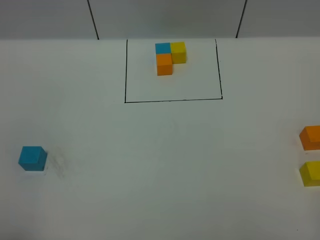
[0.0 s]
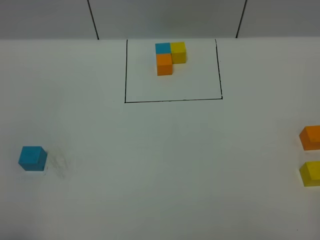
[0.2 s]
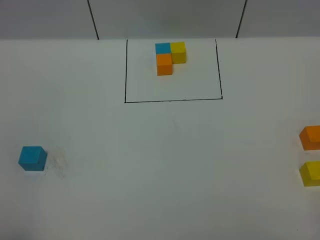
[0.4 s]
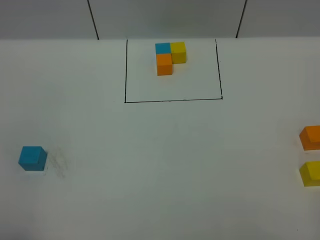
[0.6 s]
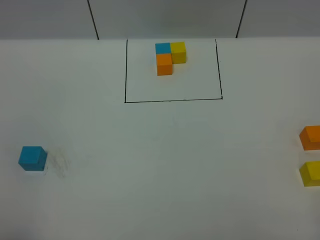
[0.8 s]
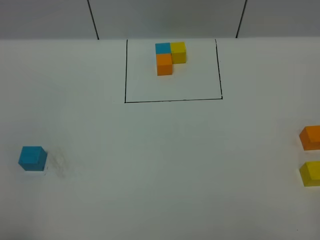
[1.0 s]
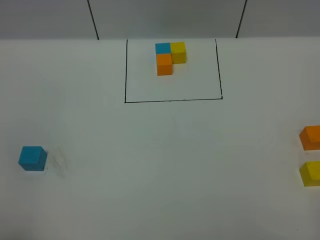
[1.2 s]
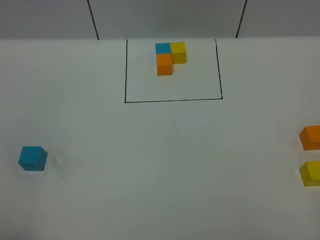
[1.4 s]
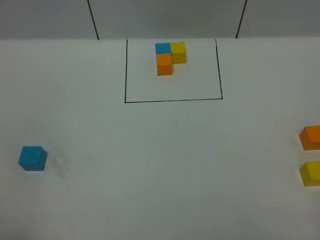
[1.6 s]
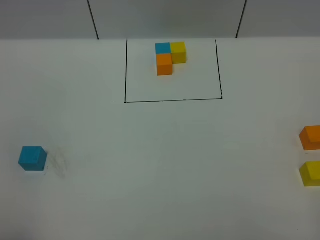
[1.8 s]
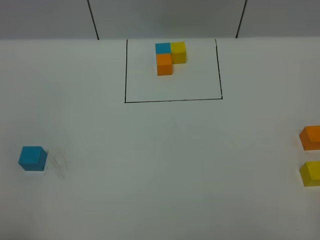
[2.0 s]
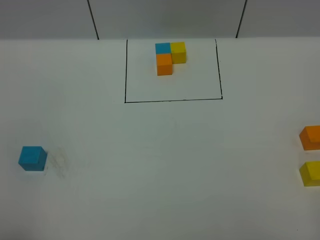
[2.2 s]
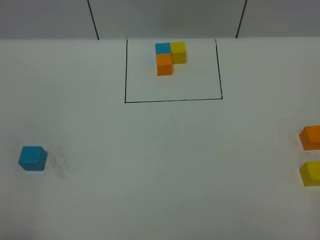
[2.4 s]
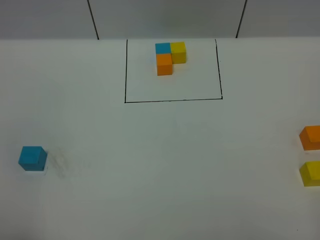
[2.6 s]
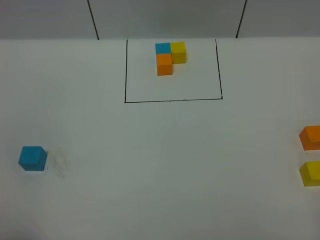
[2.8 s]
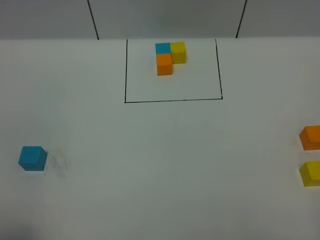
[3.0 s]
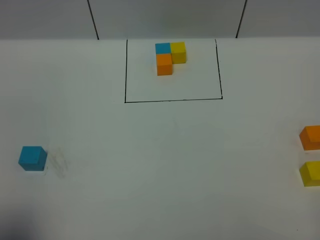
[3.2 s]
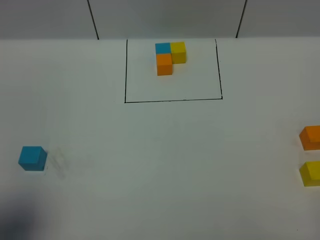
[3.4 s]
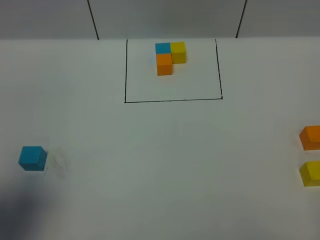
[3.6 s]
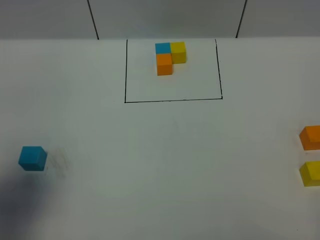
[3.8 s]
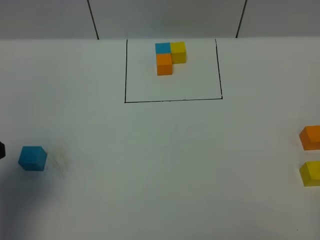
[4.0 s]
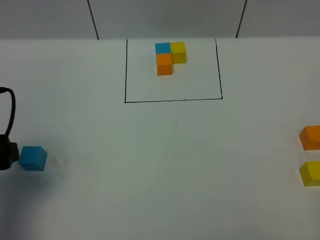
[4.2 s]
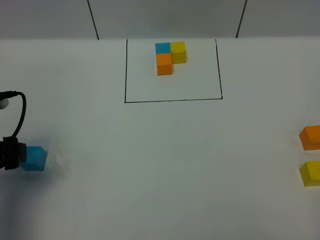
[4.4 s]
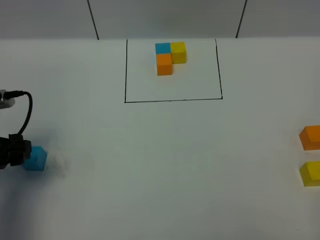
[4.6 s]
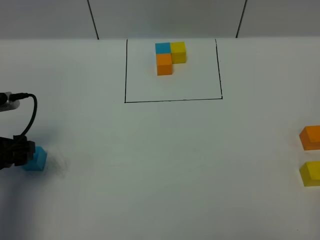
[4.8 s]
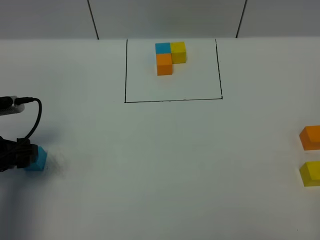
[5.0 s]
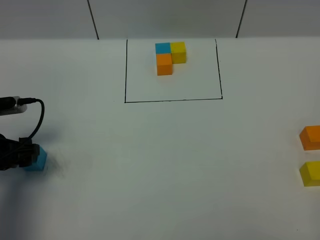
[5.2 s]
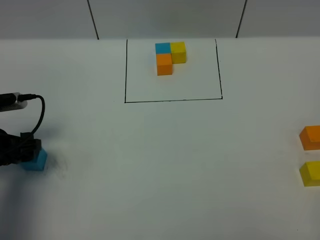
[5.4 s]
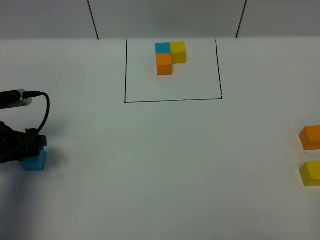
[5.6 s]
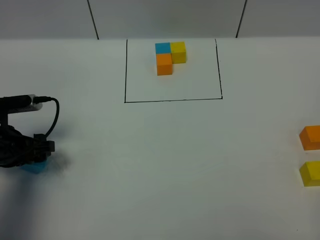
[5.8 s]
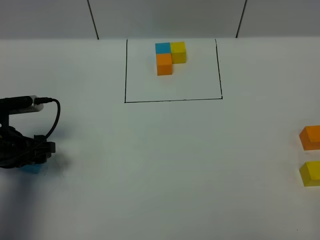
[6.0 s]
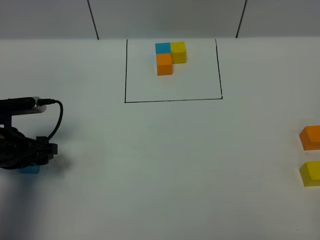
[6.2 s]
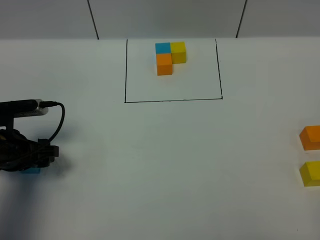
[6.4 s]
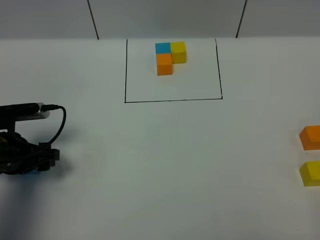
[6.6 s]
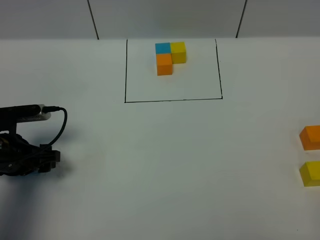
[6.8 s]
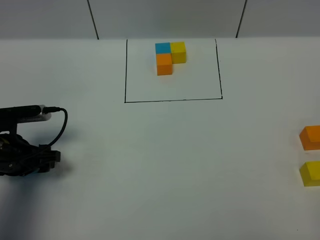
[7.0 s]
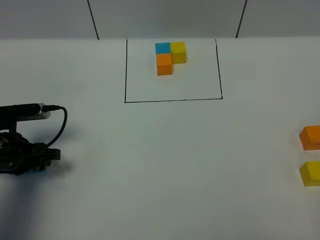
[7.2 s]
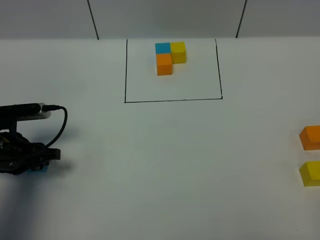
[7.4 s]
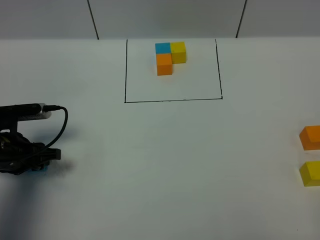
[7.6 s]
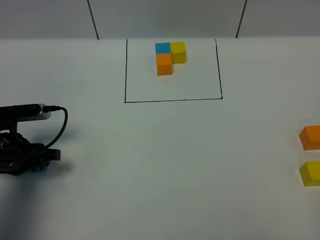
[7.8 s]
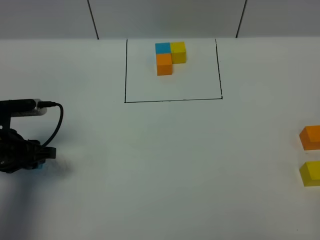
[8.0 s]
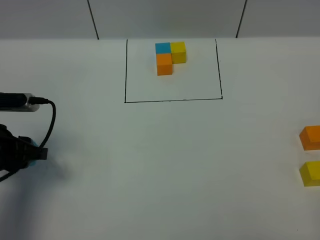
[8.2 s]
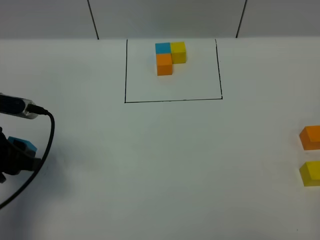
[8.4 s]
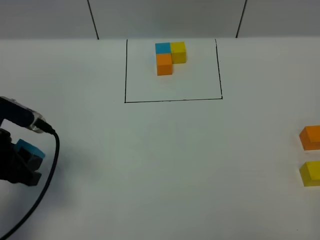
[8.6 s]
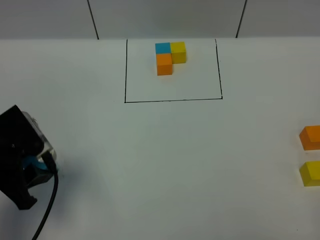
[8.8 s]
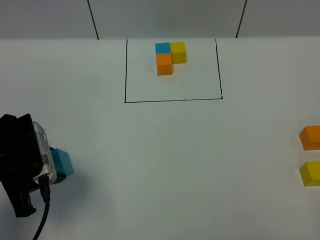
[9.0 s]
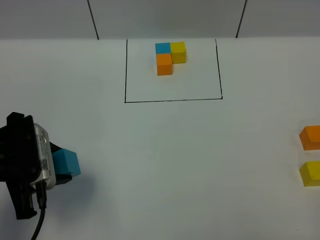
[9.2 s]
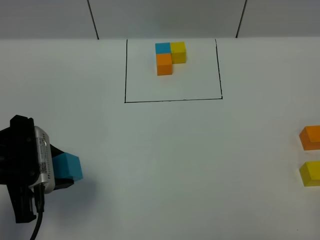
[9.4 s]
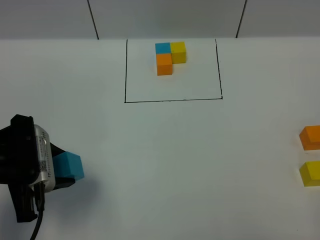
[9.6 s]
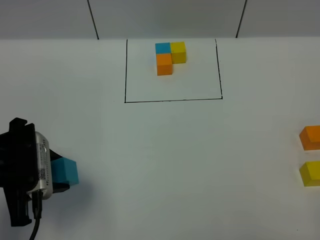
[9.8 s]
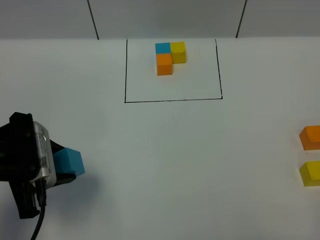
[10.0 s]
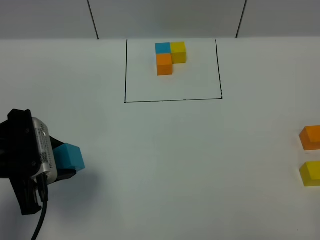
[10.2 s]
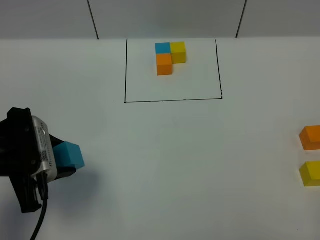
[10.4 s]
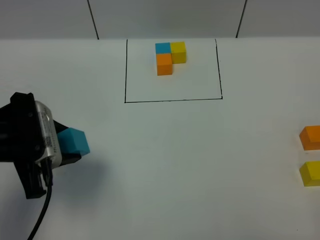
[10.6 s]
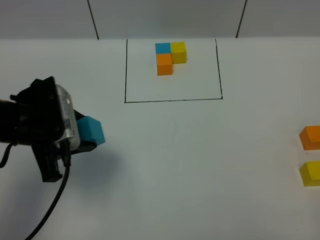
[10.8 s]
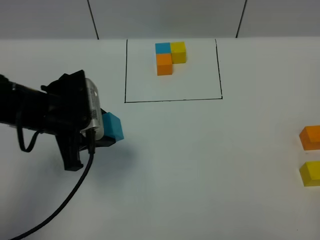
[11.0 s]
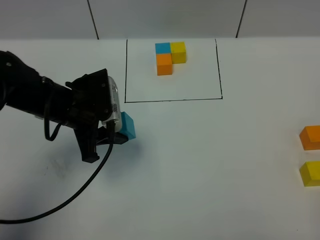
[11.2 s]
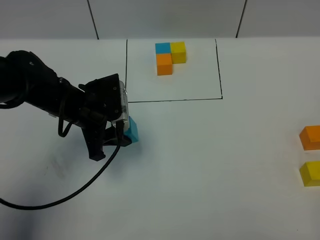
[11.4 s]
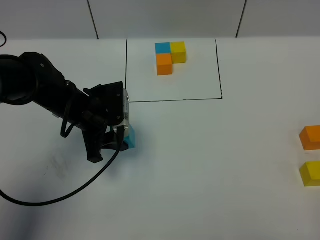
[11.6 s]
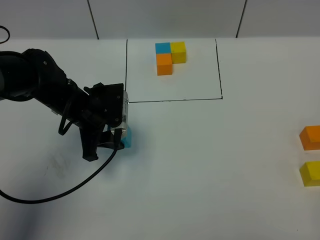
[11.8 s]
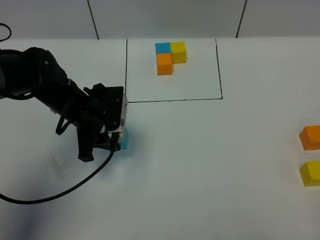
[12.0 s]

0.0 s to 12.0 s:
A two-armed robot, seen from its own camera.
Task of the whole recording: According to the building block template in front, assemble the scattered blocks together.
0.0 to 1.6 s: Both grippers stay put.
3.0 to 4.4 s: The left gripper travels forward and downward by approximately 25 cm.
4.4 to 6.0 s: The left gripper is displaced downward by roughly 5 cm.
6.0 to 7.6 s: The grippers make only small movements.
7.6 to 9.0 s: The left gripper shifts roughly 10 cm upward and backward.
9.0 to 10.4 s: There are only small adjustments of the grippers.
10.4 to 12.0 s: The left gripper is displaced forward, to the right and downward by approximately 15 cm.

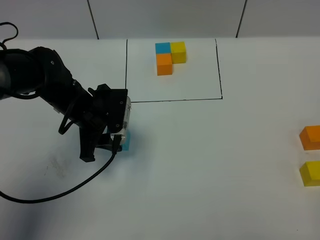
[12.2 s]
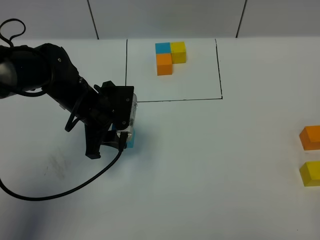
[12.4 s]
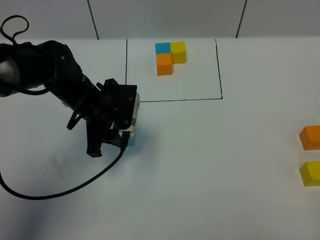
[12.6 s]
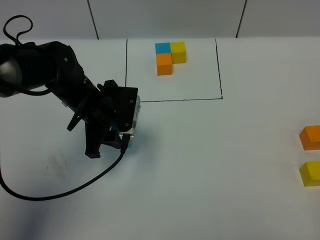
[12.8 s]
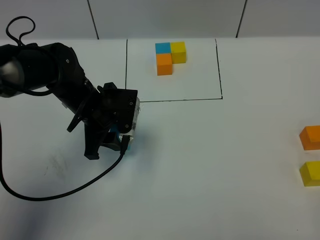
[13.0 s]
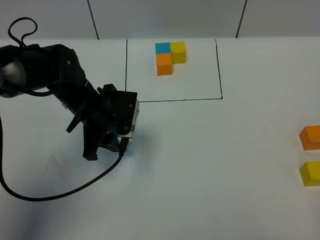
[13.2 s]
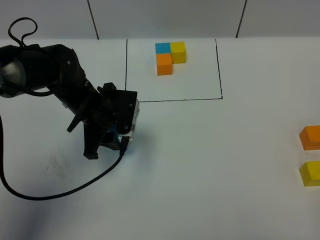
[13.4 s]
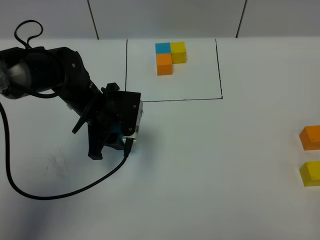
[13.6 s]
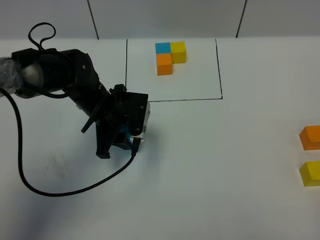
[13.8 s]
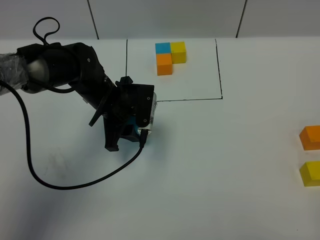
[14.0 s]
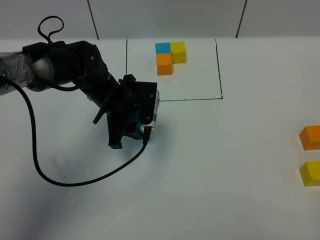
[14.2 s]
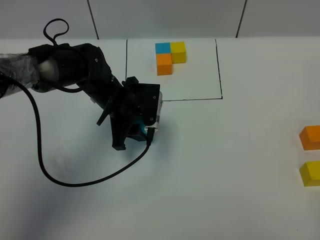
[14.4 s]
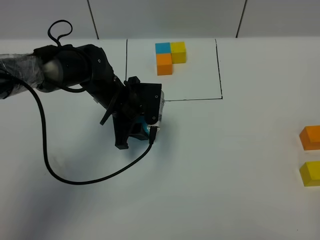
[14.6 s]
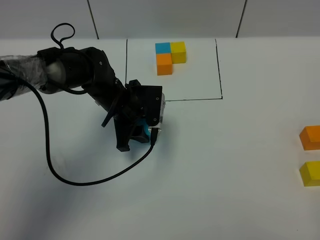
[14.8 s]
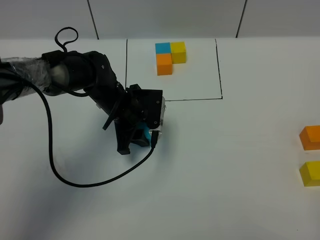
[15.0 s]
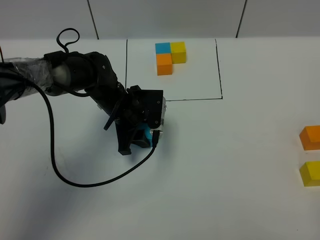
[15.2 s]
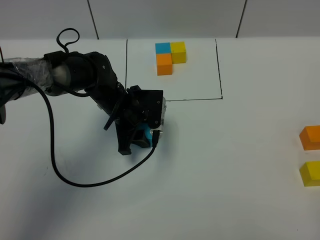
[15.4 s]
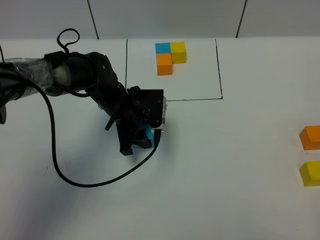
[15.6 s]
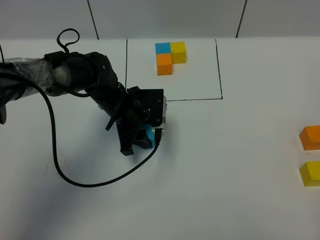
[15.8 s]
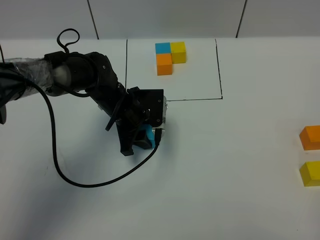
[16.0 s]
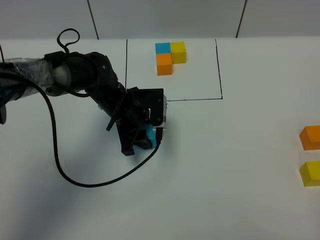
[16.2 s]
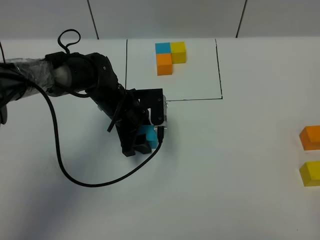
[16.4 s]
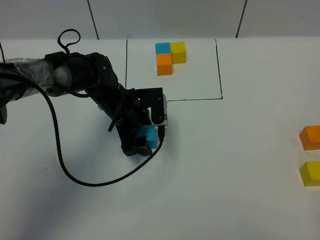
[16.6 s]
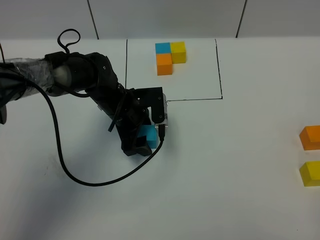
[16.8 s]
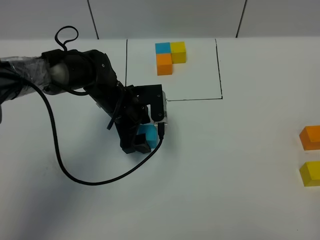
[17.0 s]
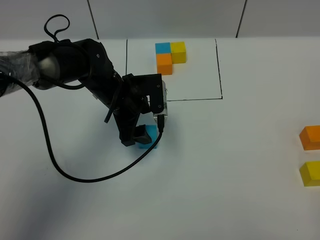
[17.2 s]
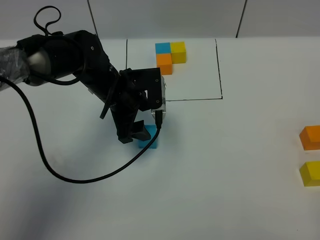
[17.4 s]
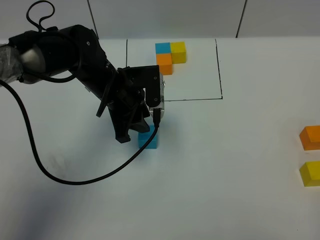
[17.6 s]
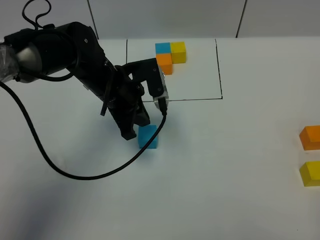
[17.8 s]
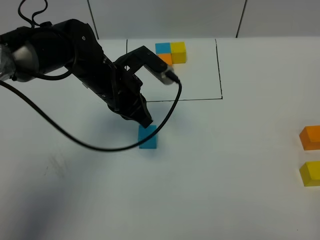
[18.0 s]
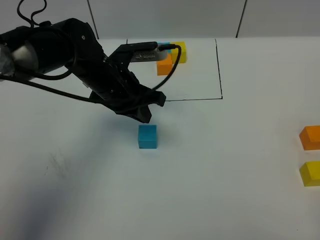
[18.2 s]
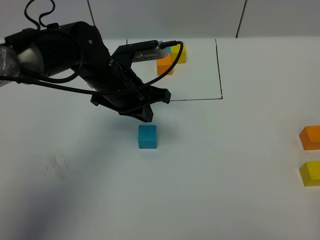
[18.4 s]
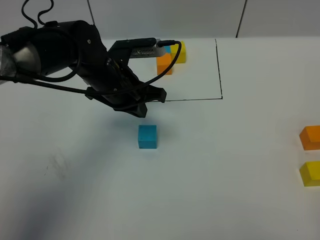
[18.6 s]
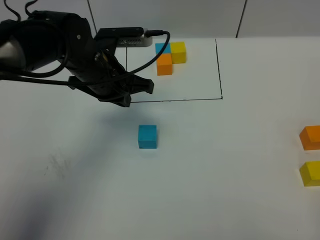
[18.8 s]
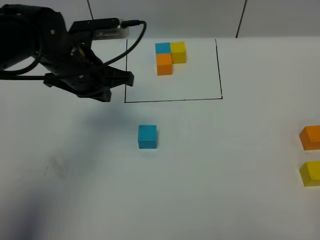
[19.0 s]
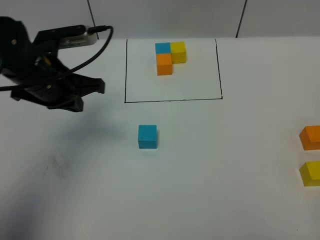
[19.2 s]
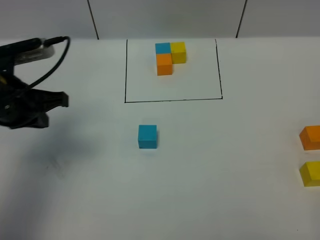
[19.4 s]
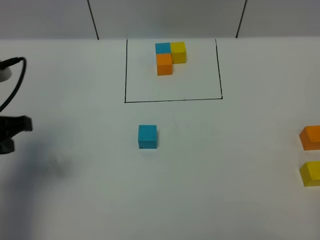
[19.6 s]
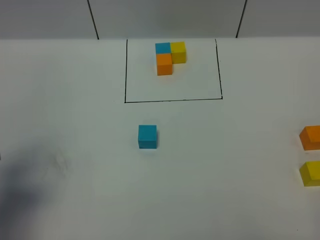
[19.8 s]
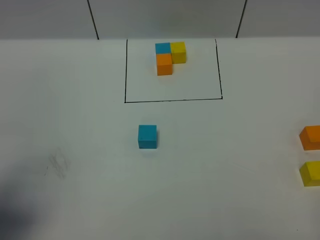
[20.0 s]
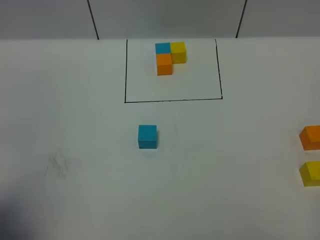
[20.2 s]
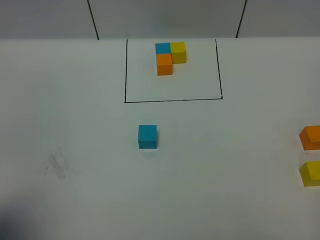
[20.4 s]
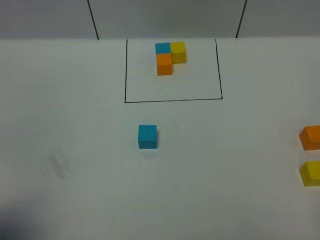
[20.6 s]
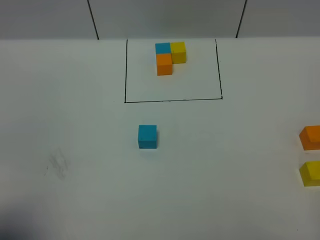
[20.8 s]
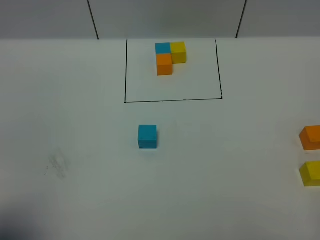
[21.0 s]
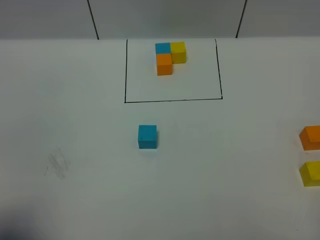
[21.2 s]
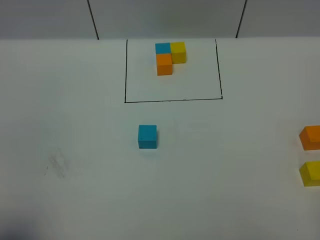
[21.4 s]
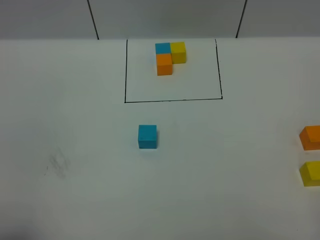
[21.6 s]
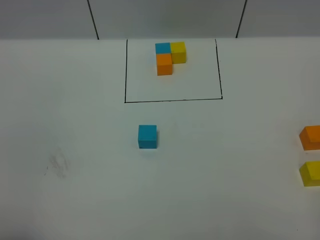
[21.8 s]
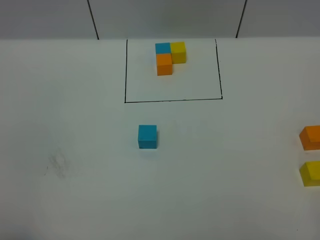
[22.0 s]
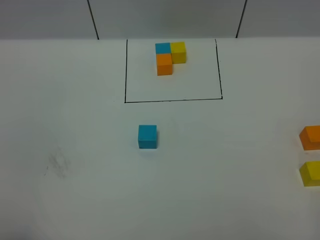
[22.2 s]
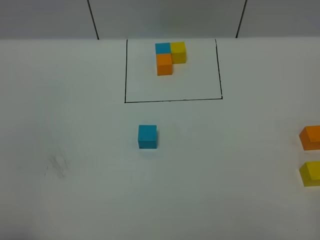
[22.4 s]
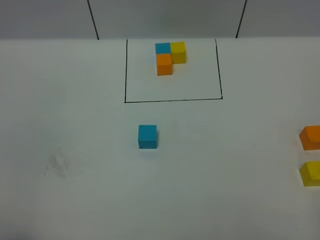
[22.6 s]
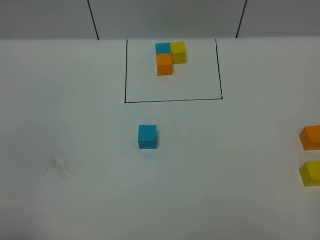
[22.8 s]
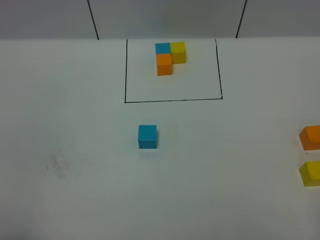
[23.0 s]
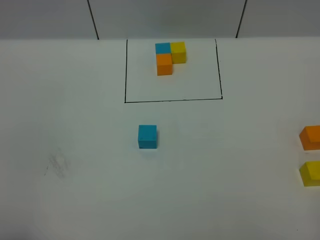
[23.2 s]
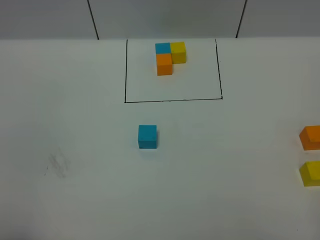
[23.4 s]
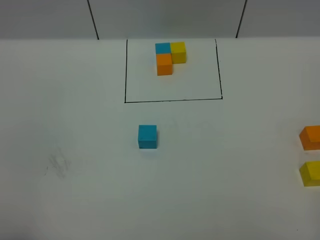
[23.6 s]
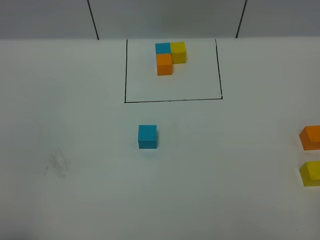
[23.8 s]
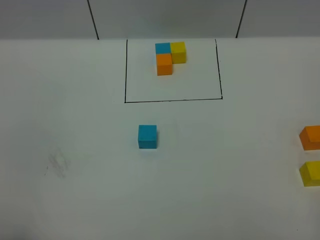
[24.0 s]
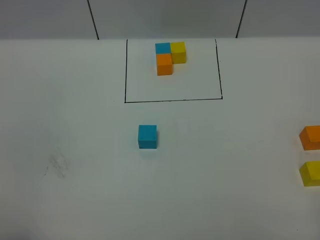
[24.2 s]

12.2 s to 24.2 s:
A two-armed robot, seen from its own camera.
Task of the whole recording: According to the building block template in front, assemble the scattered blocks together.
Step, 12.2 to 16.4 s: Put the blue cube in the center of the table.
12.2 to 13.8 s: The grippers make only small movements.
13.8 to 15.2 s: There are only small adjustments of the grippers.
15.2 to 16.6 s: The left gripper opens up.
16.6 to 18.2 s: The left gripper moves upward, roughly 10 cm, and closes its fingers.
18.2 to 19.8 s: The left gripper moves to the left and backward, some 30 cm.
19.8 to 21.2 s: The left gripper moves backward, some 10 cm.
22.6 to 24.2 s: The two grippers keep their place.
